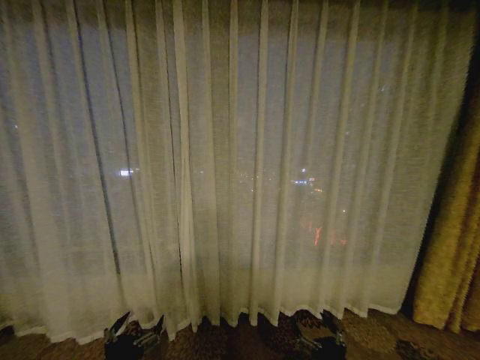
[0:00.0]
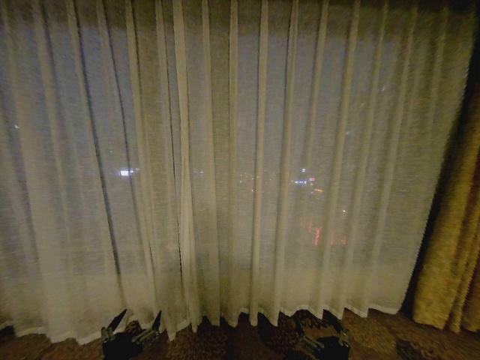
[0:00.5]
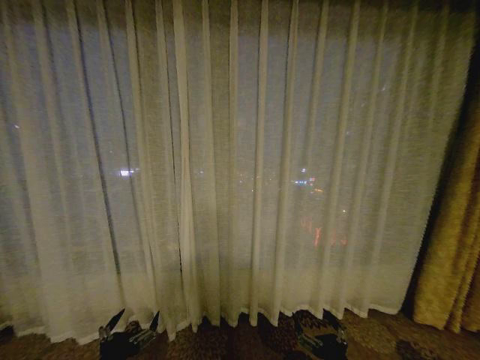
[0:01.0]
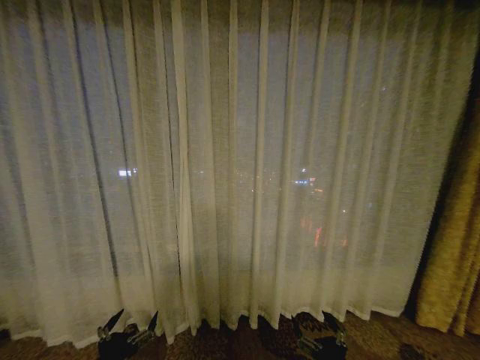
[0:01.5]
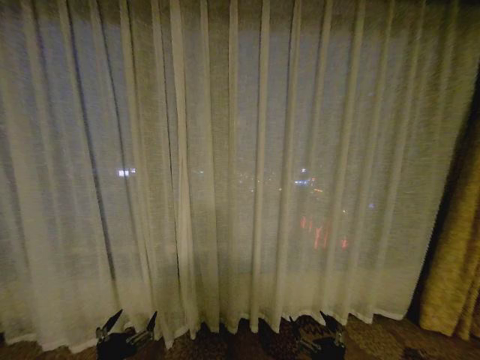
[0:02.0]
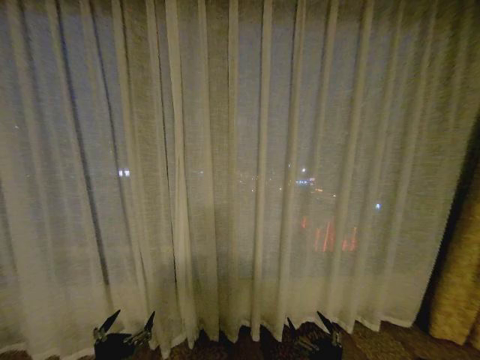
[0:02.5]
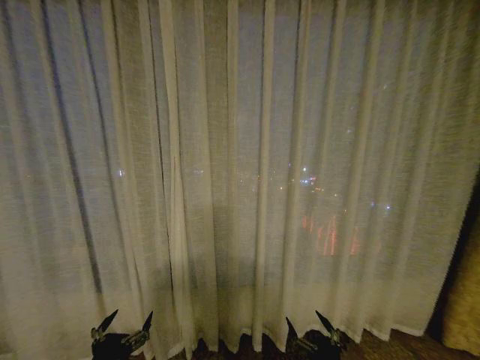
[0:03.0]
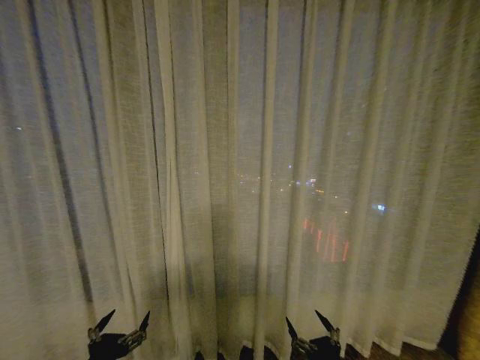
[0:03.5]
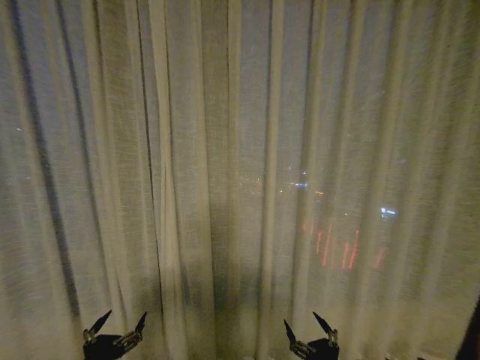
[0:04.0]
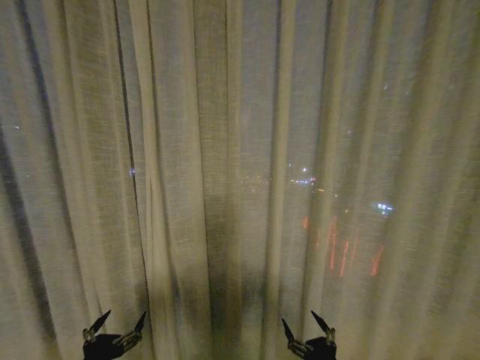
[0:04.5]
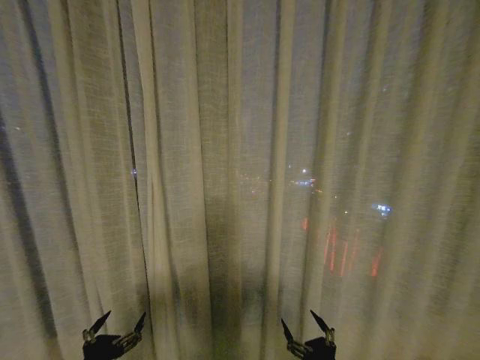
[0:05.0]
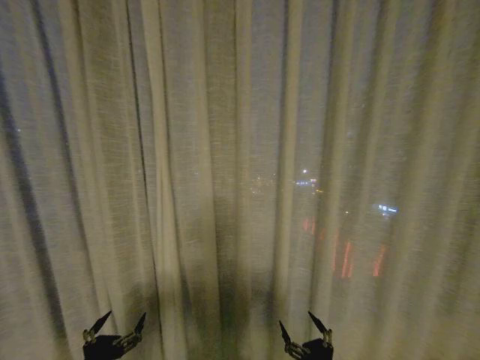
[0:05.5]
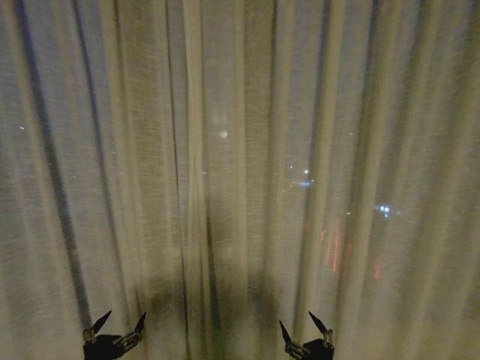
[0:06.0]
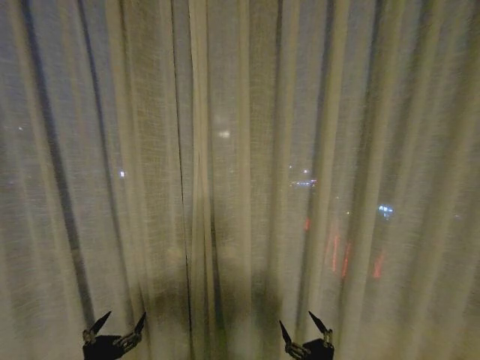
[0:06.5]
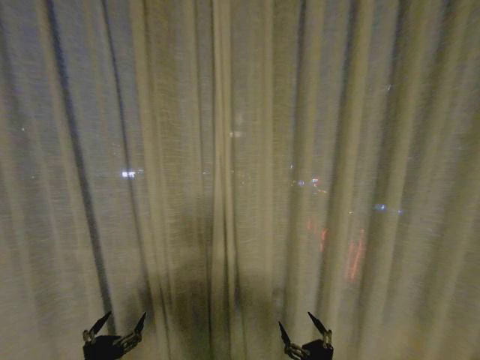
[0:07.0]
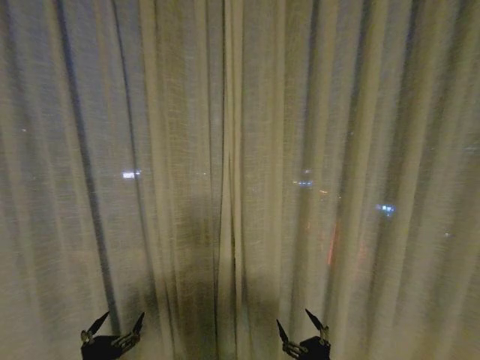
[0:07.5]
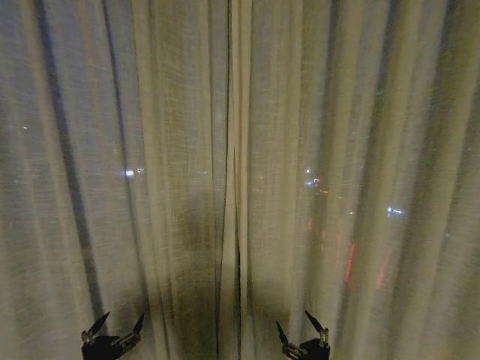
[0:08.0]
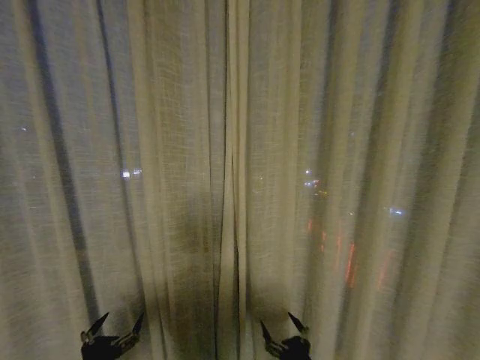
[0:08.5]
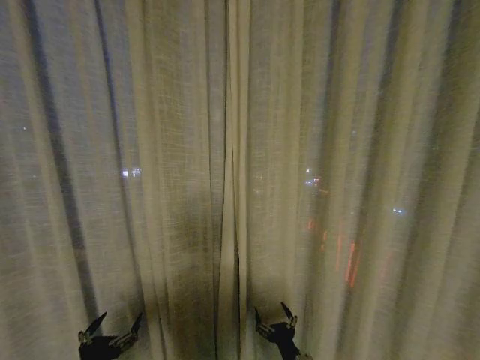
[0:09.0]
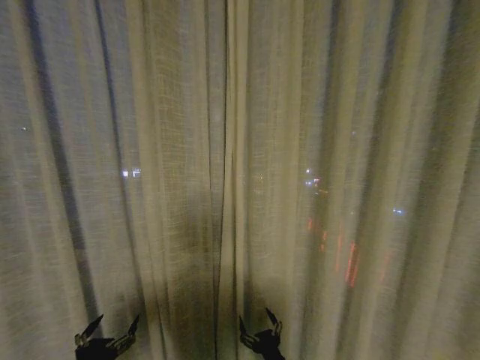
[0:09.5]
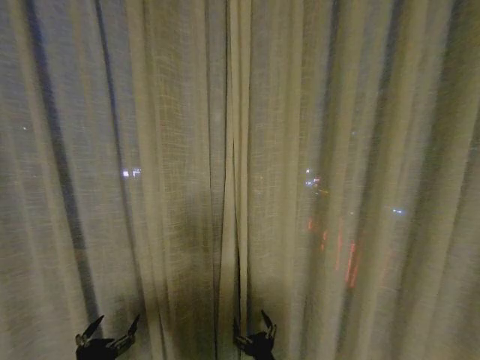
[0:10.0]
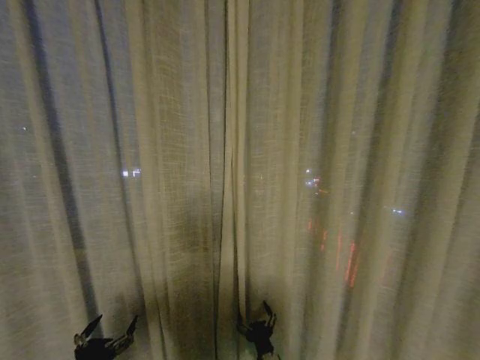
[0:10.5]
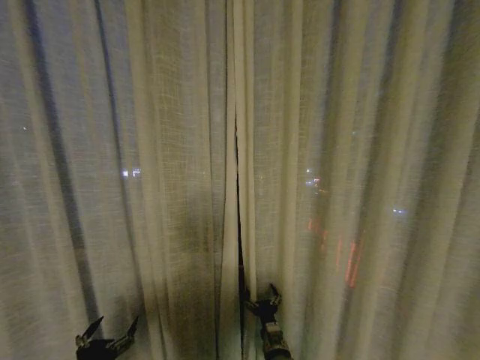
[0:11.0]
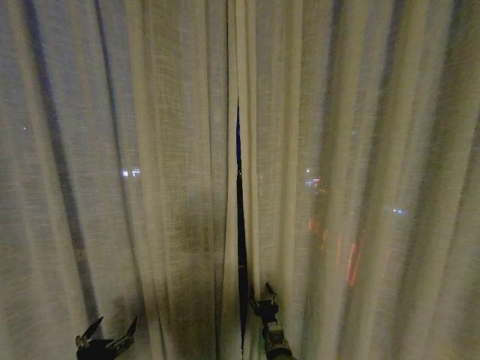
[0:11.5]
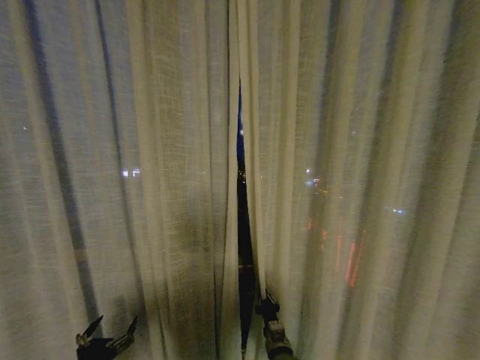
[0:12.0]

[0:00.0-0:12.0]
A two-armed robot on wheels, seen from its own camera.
Task of the whole recording: Open the curtains by pulling them apart, changing their state from closed to fully open.
0:04.0 to 0:06.0: Both grippers stay about where they are.
0:08.0 to 0:10.0: The right gripper shifts roughly 15 cm to the left.
0:10.0 to 0:12.0: The right gripper goes roughly 10 cm forward, and closes up.

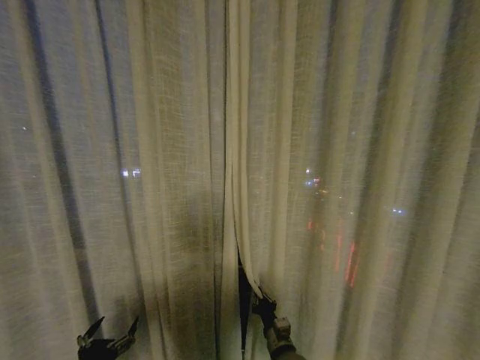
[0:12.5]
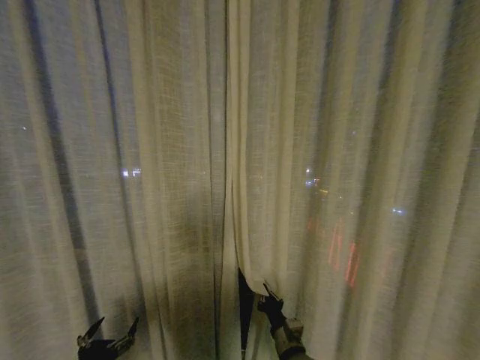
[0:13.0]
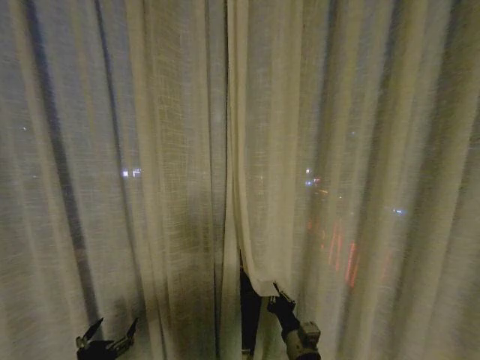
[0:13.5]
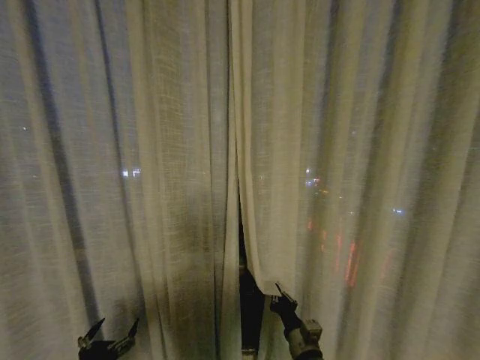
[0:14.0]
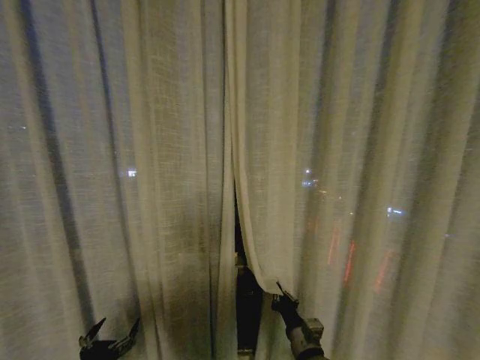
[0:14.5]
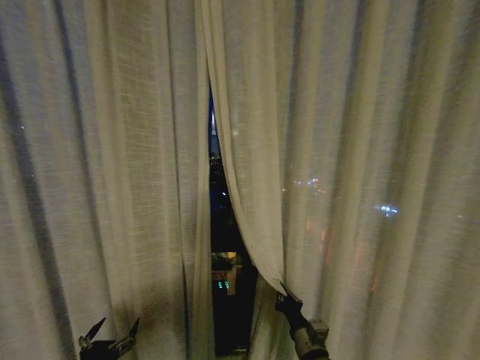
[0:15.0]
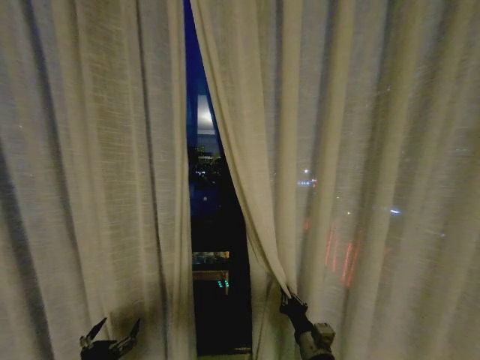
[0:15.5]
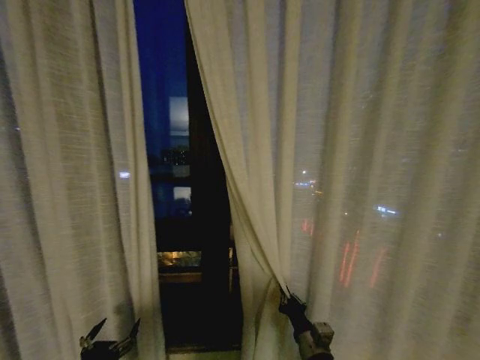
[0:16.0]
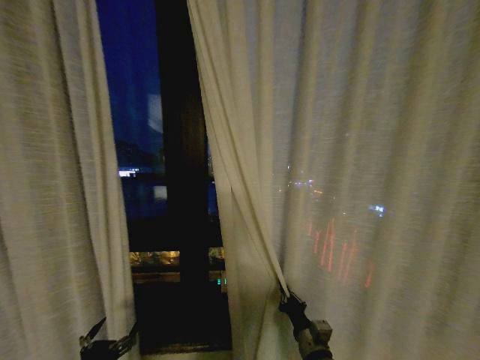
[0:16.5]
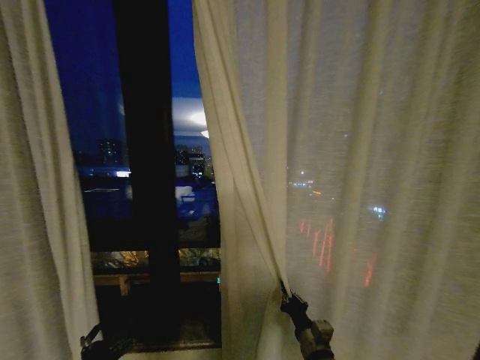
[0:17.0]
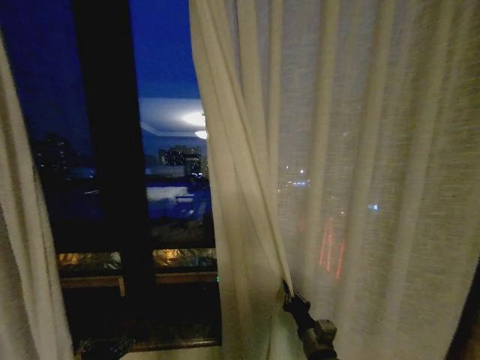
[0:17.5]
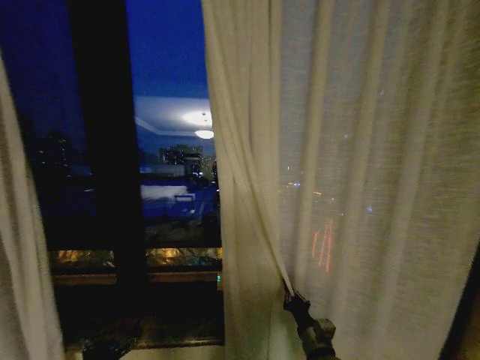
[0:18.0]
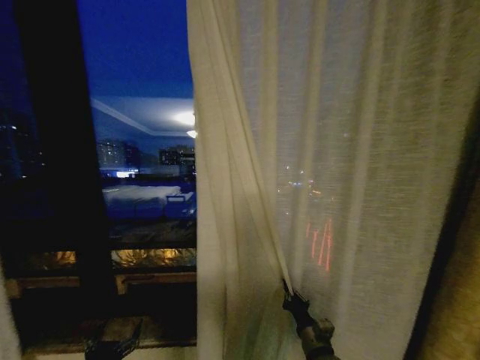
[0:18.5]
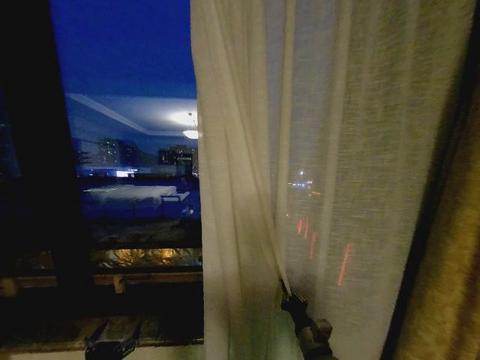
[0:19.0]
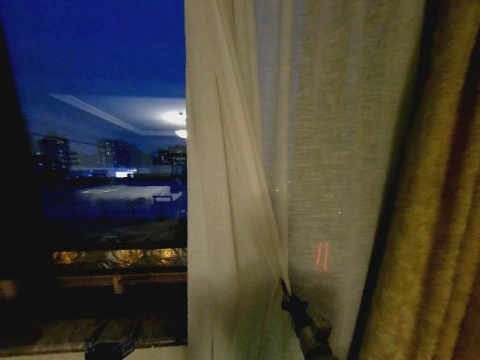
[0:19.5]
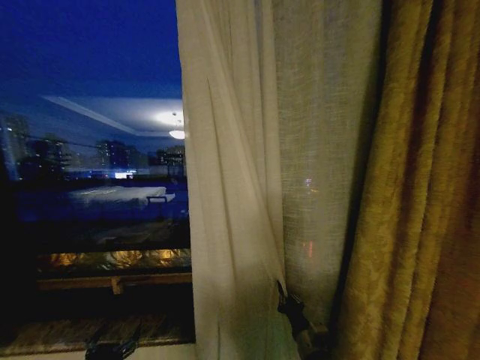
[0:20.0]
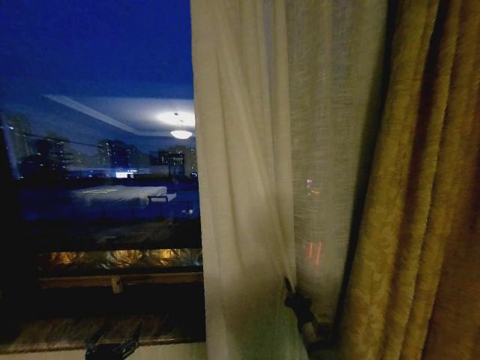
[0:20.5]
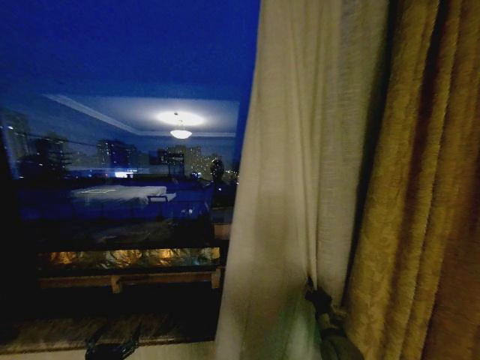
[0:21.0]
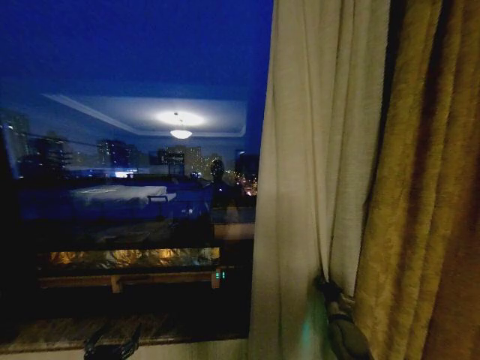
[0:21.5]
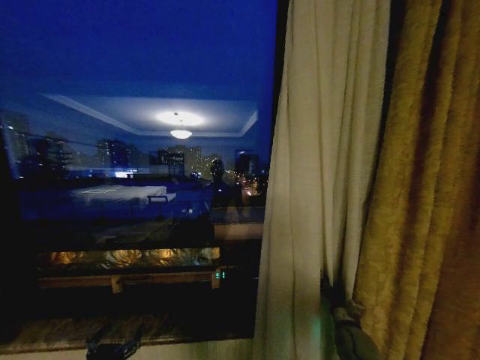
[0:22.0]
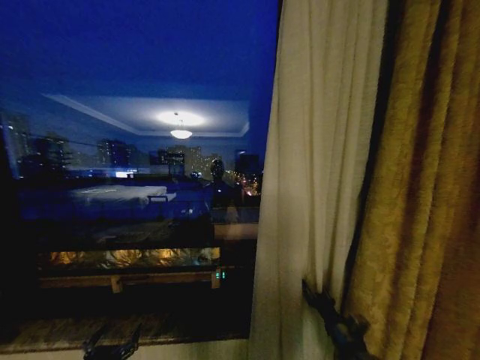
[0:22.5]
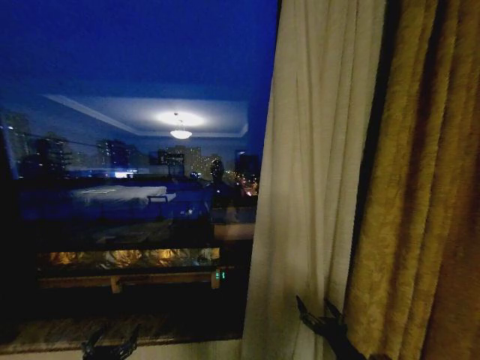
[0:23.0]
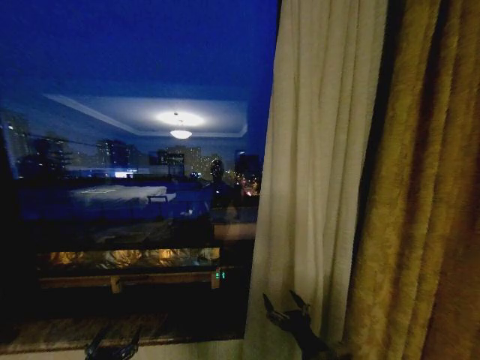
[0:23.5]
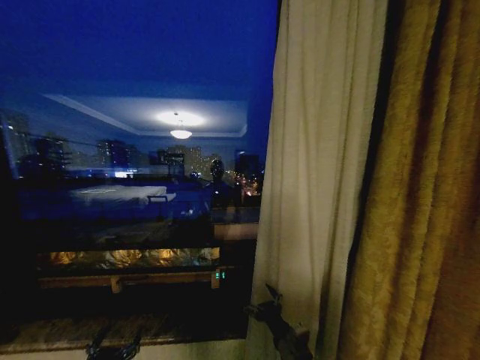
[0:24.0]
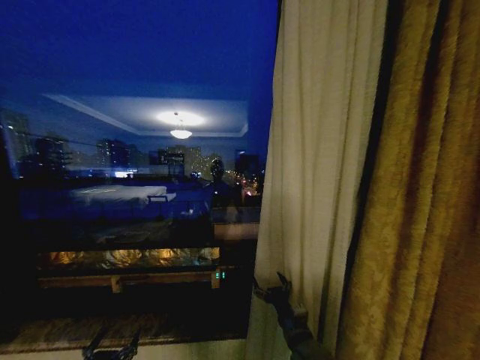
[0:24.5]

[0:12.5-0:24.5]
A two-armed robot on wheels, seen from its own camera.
Task of the whole recording: Open the curtains by pulling them apart, changing their state from closed to fully open.
0:12.5 to 0:14.5: The right gripper moves to the right, about 5 cm.
0:20.5 to 0:22.5: The right gripper goes about 5 cm to the right, and opens its fingers.
0:22.5 to 0:24.5: The right gripper goes about 15 cm to the left, and opens its fingers.

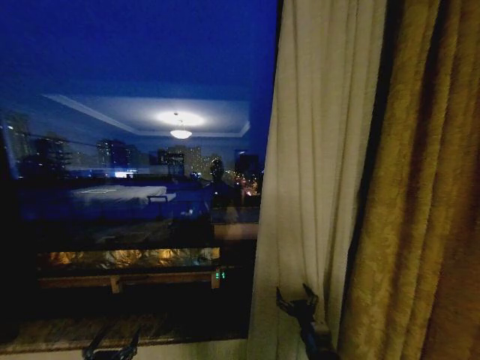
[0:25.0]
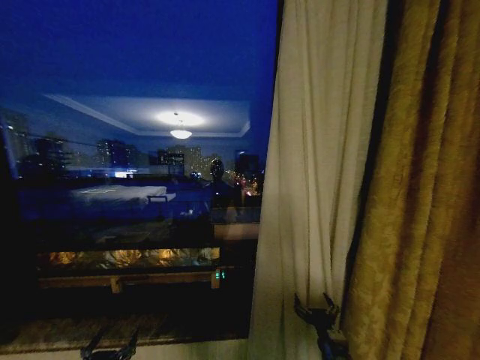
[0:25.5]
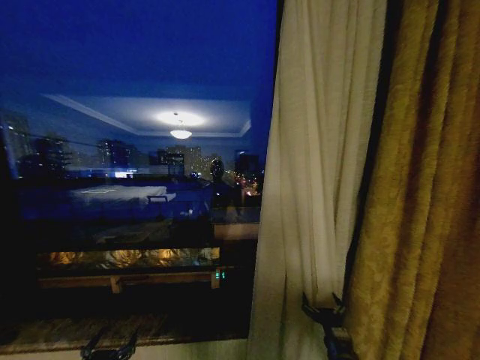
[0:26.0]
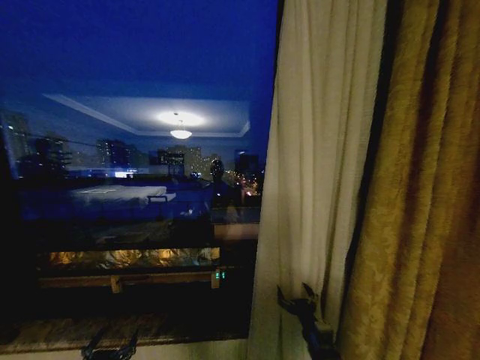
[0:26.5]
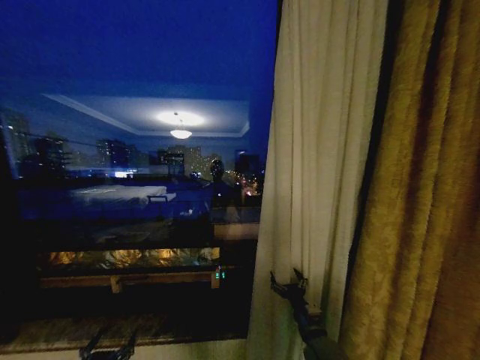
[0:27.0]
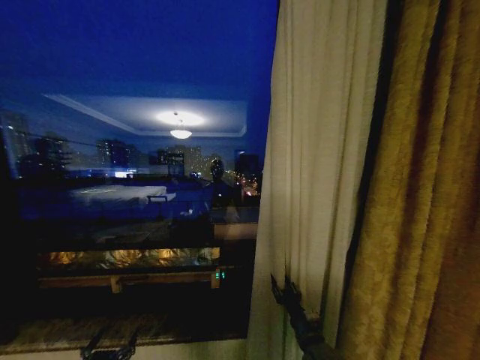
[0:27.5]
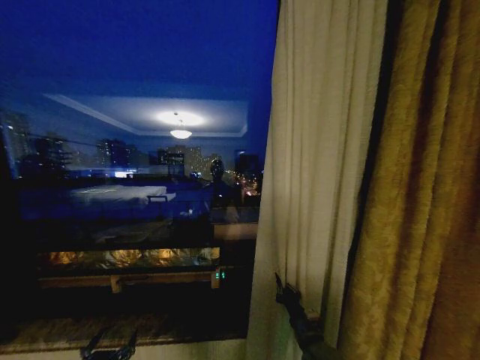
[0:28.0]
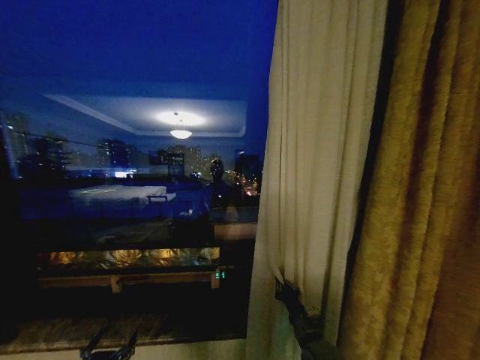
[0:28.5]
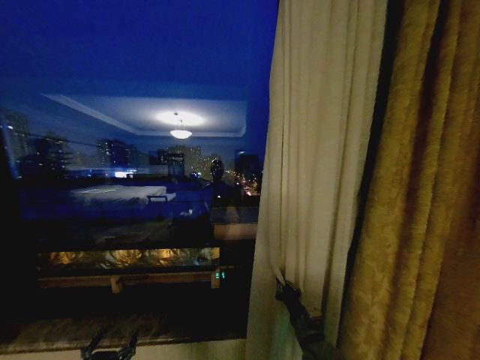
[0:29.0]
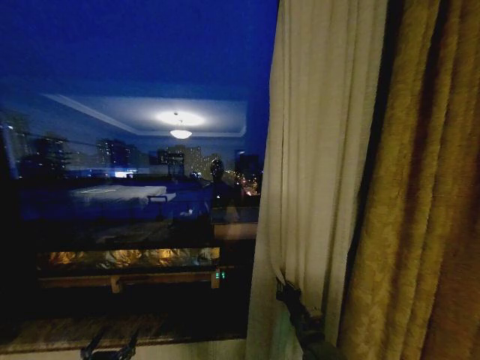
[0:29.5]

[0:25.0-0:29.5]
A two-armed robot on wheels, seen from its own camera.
Task of the whole recording: Open the curtains by pulling them apart, changing their state from closed to fully open.
0:25.0 to 0:27.0: The right gripper shifts roughly 5 cm forward.
0:27.0 to 0:29.5: The right gripper closes up.
